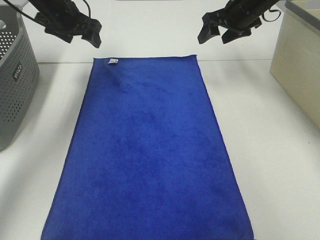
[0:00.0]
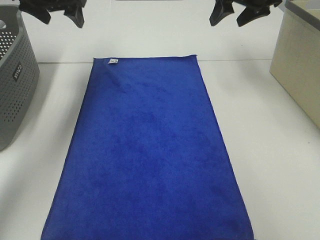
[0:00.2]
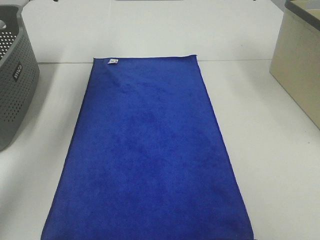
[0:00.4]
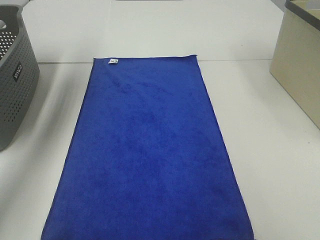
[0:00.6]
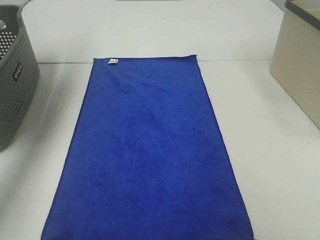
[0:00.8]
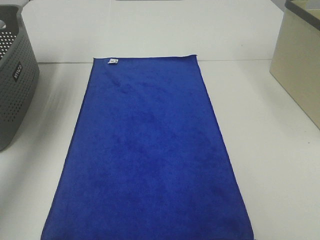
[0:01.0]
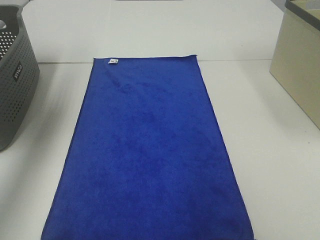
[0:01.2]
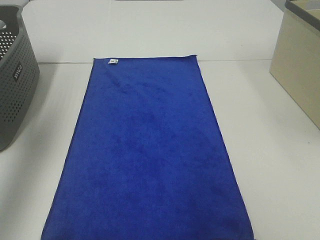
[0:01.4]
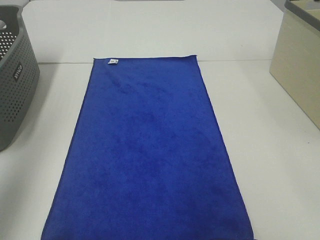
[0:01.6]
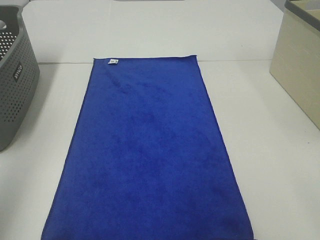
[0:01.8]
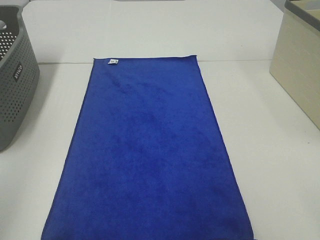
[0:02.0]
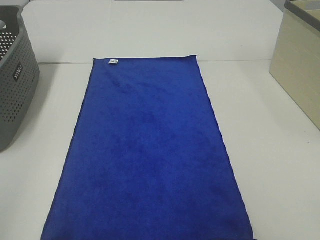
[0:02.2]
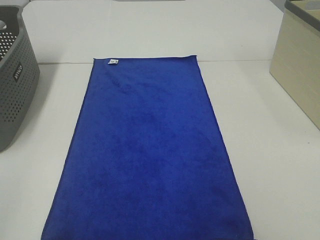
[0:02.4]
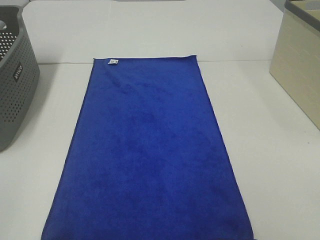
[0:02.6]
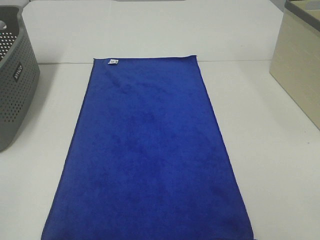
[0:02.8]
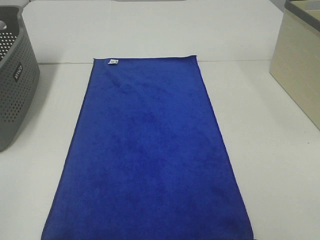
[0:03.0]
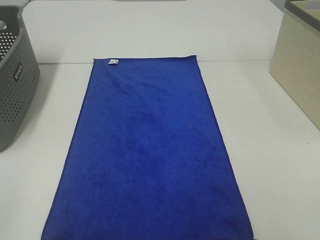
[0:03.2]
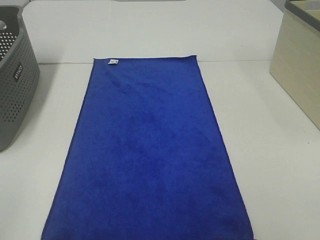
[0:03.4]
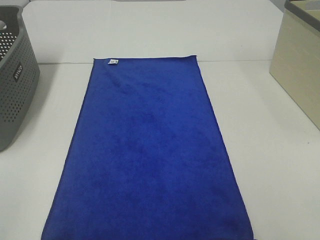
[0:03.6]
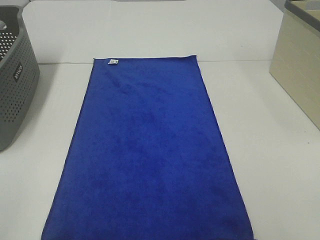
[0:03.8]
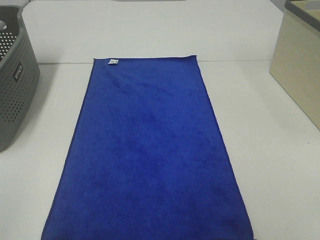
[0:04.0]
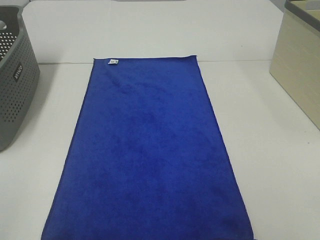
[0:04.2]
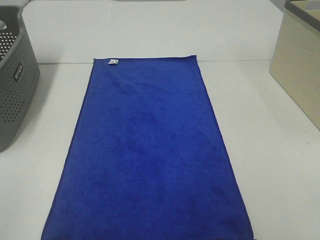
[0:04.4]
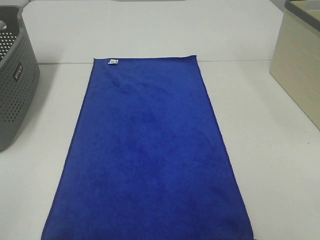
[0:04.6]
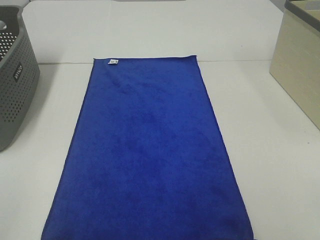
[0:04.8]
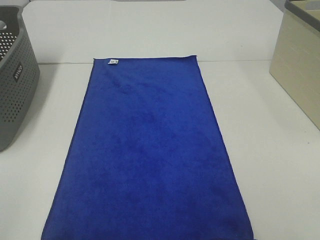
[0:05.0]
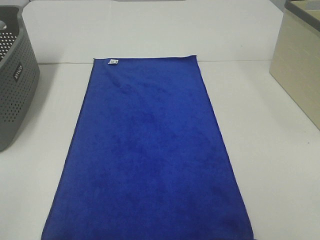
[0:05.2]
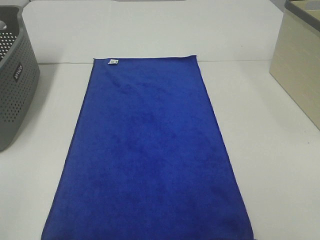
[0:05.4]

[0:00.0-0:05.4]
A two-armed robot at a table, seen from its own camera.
Task of the whole recording: Remove the towel and place it.
0:00.0 to 0:01.4: Both grippers move backward and upward, approximately 35 cm.
0:01.4 to 0:02.8: The left gripper travels backward by approximately 30 cm.
0:04.0 to 0:05.4: Both grippers stay put.

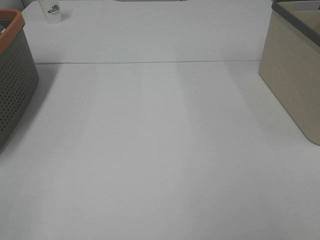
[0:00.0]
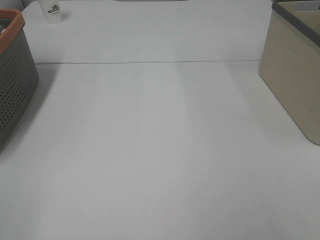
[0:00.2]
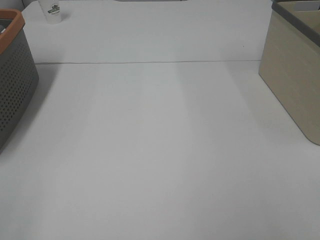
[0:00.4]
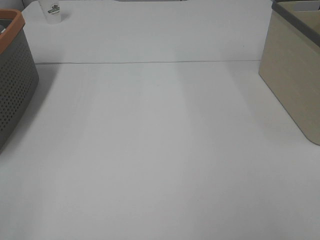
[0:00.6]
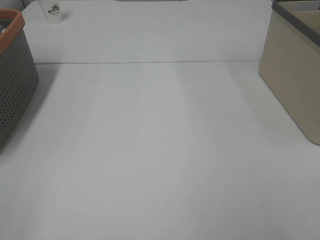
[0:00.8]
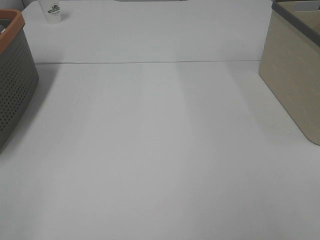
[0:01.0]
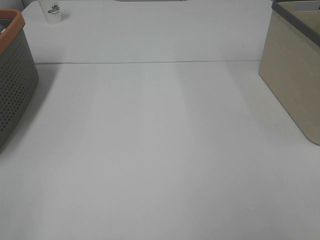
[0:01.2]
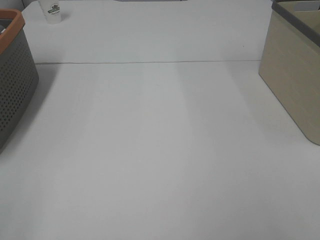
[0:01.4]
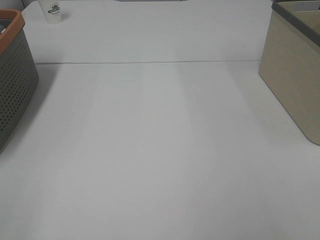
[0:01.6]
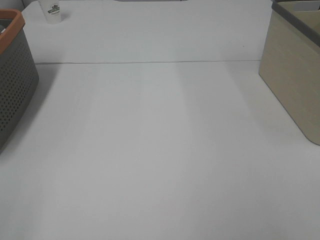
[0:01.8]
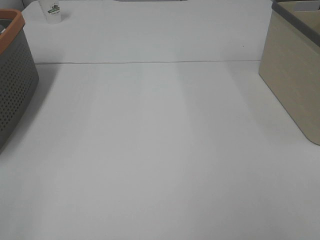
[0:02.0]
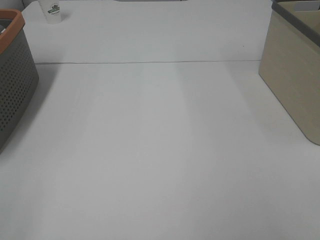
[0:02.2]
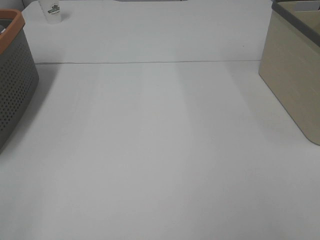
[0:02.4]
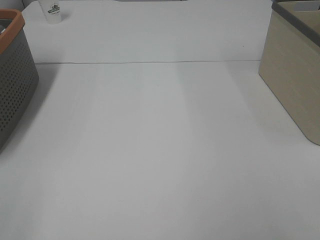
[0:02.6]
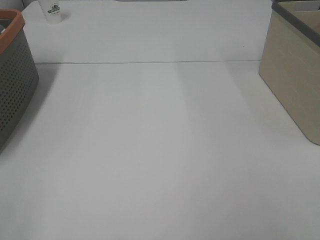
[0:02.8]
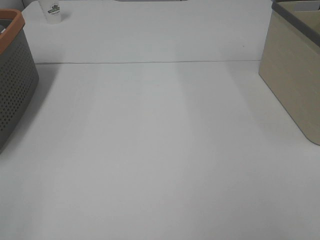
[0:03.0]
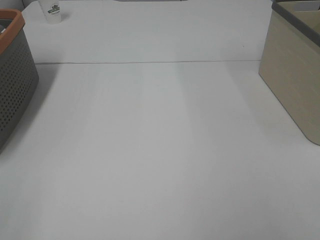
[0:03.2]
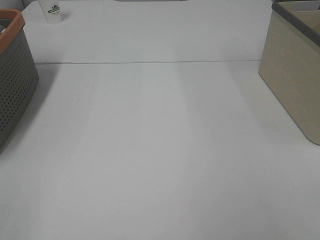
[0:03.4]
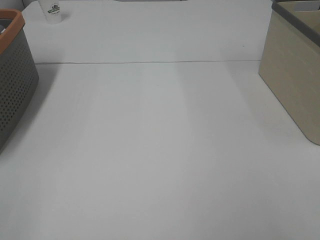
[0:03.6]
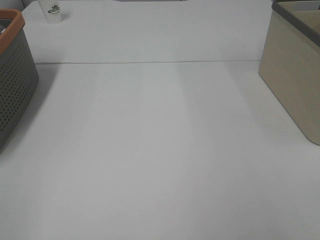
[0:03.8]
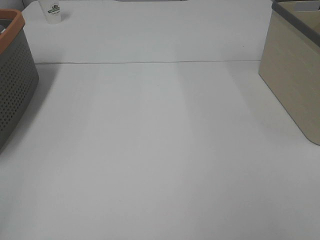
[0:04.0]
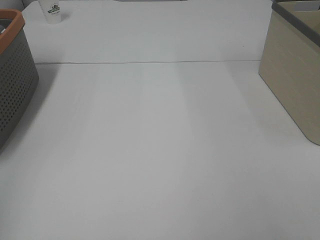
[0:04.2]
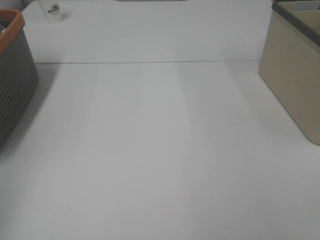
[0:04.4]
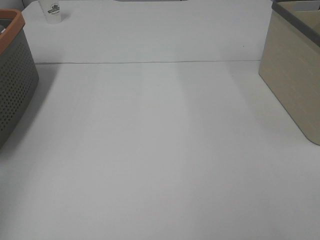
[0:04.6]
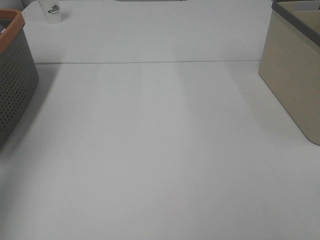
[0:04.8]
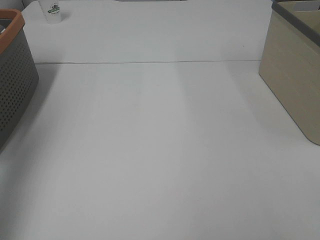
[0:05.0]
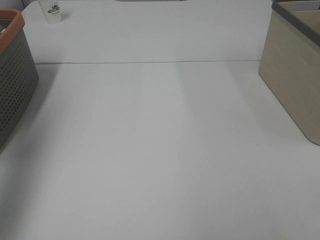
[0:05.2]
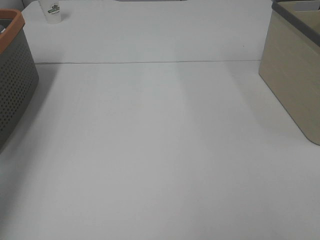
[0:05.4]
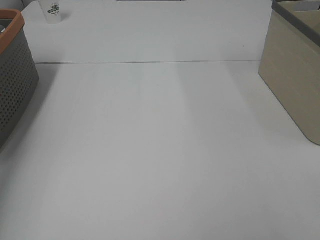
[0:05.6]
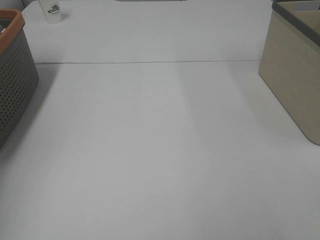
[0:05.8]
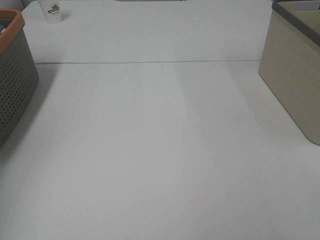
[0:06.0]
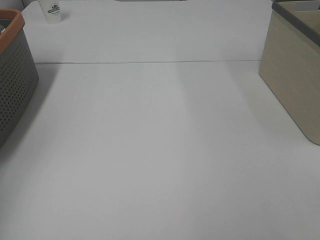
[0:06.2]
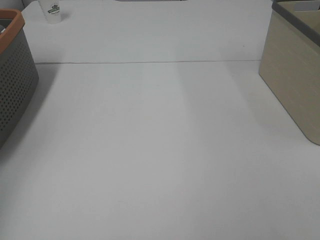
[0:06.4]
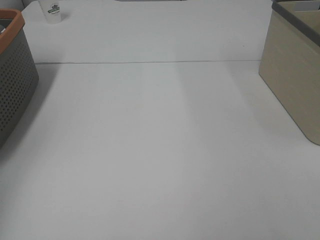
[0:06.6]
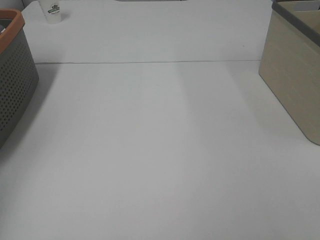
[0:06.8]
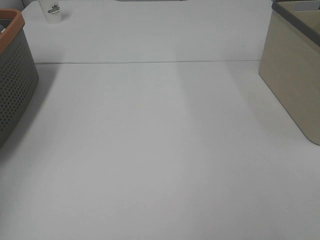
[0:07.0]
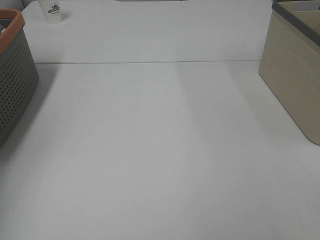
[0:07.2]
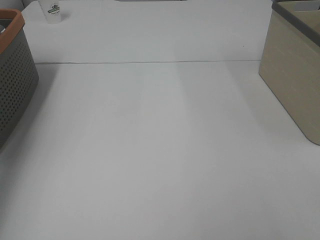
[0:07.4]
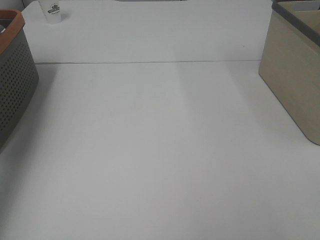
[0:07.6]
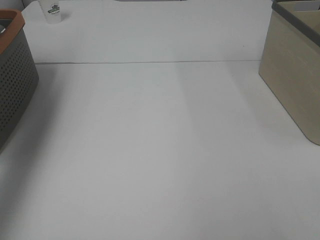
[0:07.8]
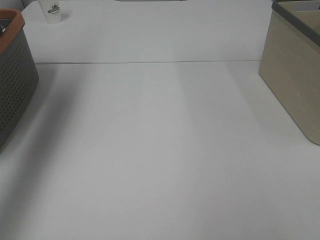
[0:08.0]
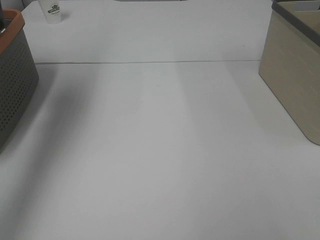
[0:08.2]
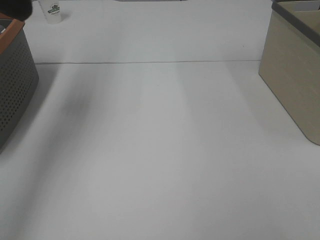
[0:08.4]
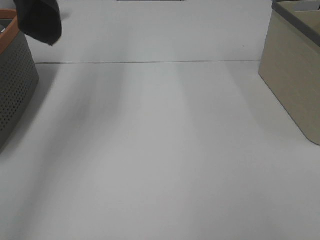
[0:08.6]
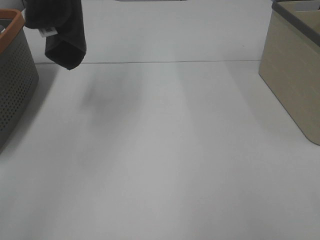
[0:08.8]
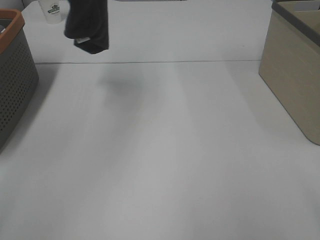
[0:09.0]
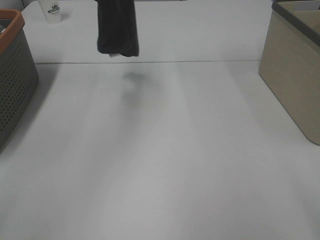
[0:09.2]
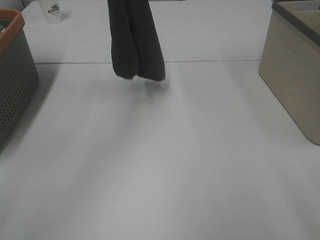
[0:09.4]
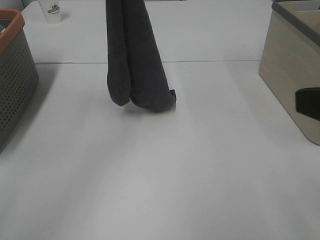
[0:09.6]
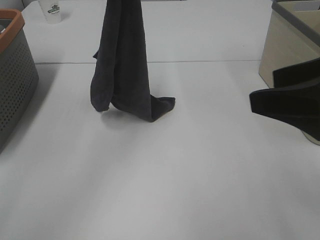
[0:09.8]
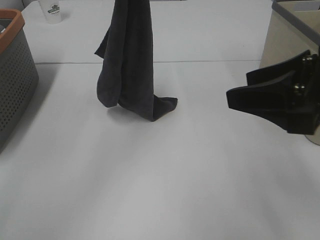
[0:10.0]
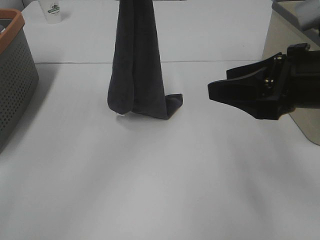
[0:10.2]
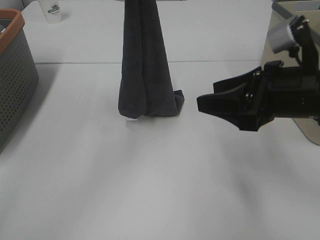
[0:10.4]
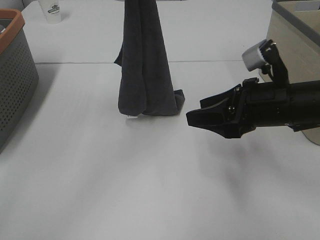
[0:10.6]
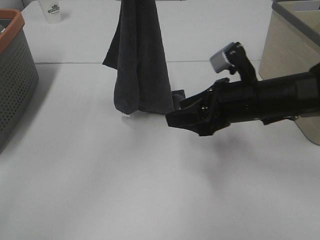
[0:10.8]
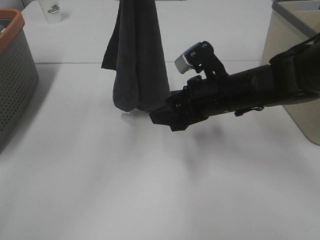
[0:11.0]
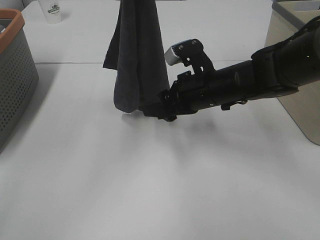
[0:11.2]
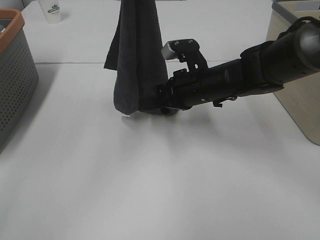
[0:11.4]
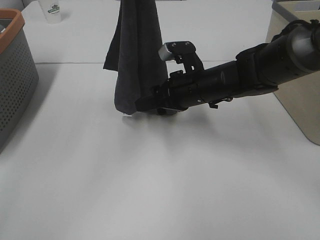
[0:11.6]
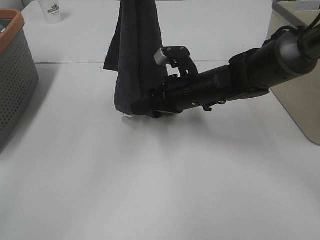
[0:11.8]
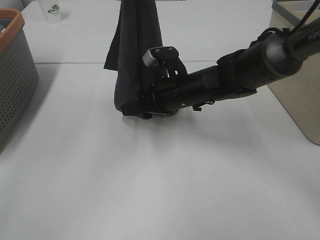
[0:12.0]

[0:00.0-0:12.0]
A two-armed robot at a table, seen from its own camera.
Task of the whole recording: Remove the towel and place it.
Step, 0:08.2 to 0:10.8: Right hand: grab a corner of the grey towel and straighten it.
0:00.0 to 0:03.0: Both grippers stay put.
0:06.0 to 0:07.6: The left gripper heads upward and to the right, covering some 15 cm, and closes up.
0:07.6 to 0:09.0: The left gripper travels to the right by some 20 cm. The right gripper travels forward by about 5 cm.
0:09.0 to 0:10.4: The right gripper shifts approximately 20 cm forward and downward. Meanwhile the left gripper heads downward, covering about 10 cm.
0:10.4 to 0:12.0: The right gripper travels to the left, forward and downward by about 20 cm.

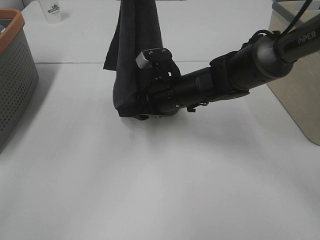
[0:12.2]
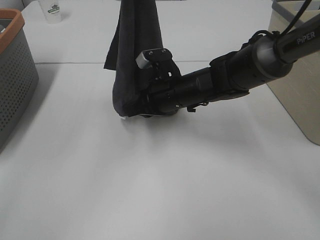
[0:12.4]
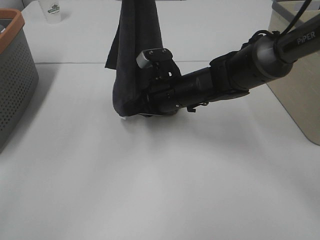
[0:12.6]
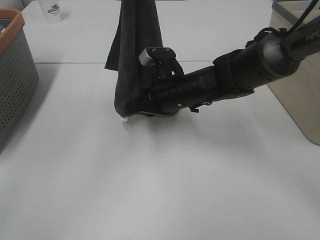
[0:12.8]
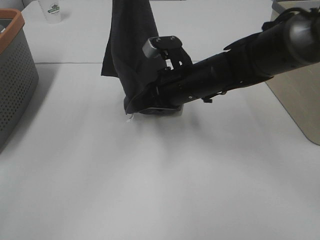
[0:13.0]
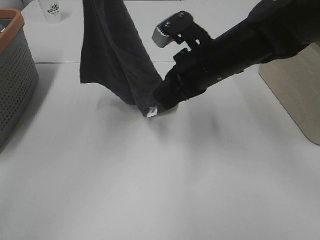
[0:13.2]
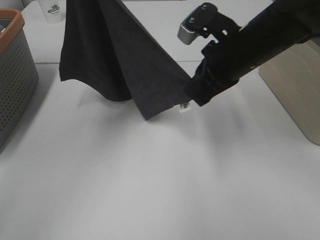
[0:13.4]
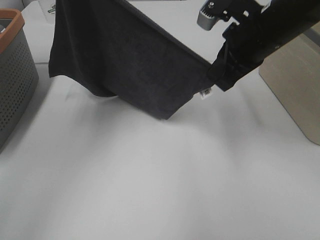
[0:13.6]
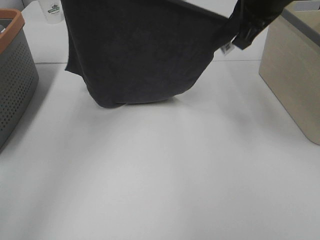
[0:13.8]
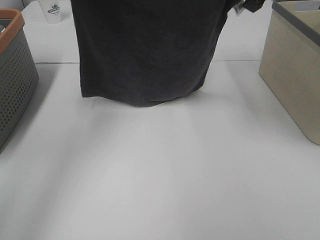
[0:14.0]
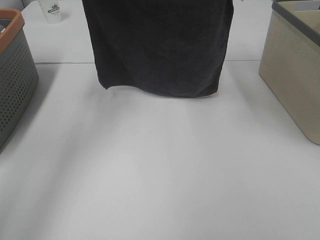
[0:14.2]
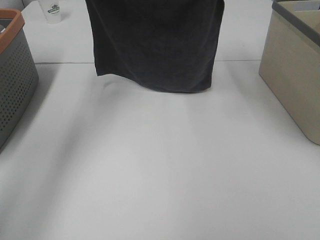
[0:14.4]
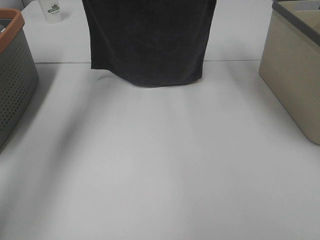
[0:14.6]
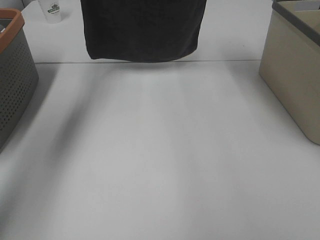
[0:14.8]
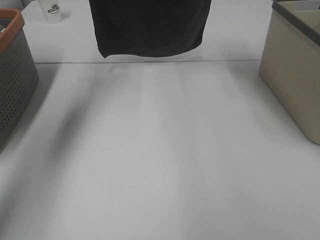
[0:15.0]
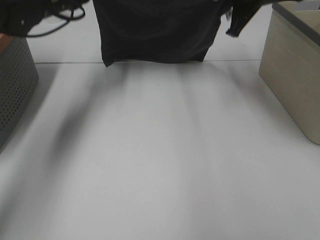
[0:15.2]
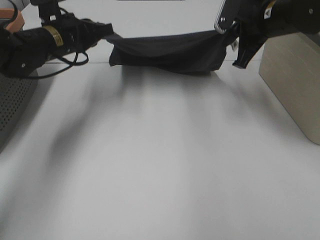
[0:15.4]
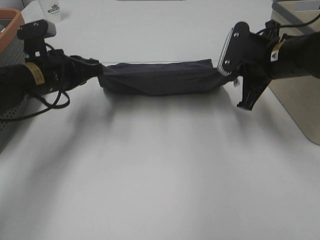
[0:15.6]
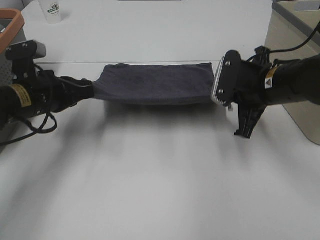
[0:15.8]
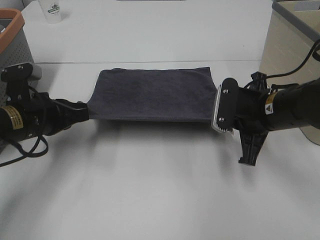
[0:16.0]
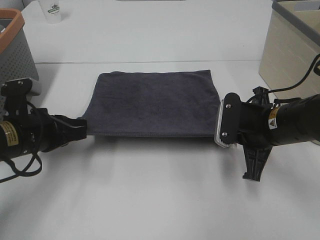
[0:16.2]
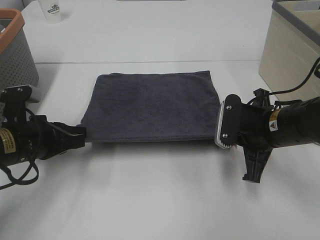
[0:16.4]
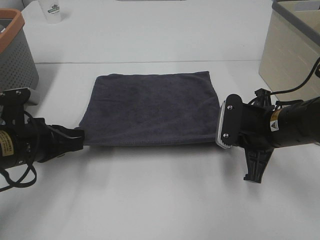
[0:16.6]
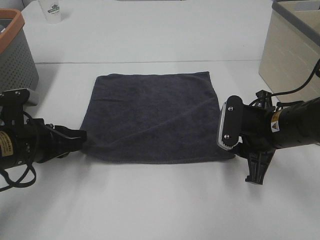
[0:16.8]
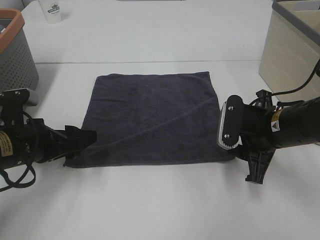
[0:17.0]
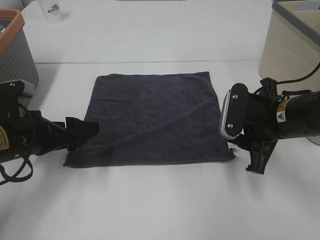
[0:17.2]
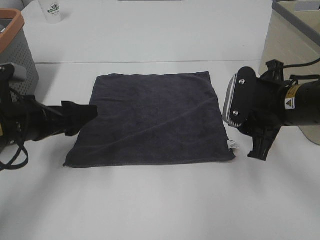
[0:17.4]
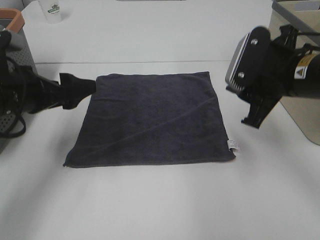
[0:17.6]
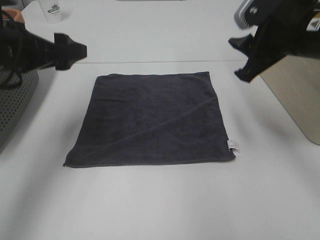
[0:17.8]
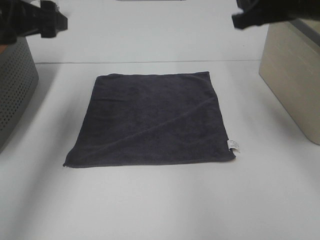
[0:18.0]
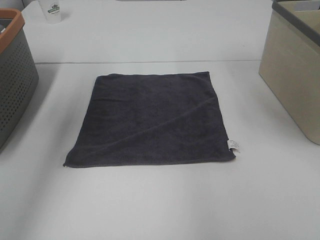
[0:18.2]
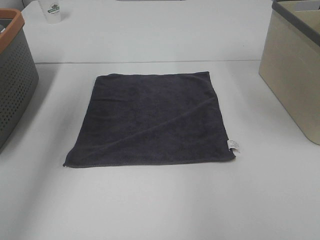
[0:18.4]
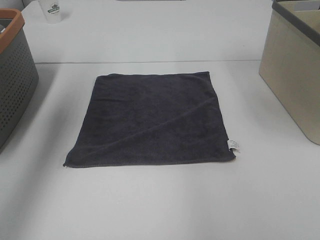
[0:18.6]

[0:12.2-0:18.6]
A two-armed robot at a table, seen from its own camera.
Task of the whole recording: Remove the towel and place it.
0:12.2 to 0:13.8: The left gripper is displaced to the left by about 10 cm. Meanwhile the right gripper shifts some 25 cm upward and to the right, and closes its fingers.
0:13.8 to 0:15.4: The right gripper shifts roughly 10 cm downward; the left gripper is displaced downward by some 20 cm.
0:15.4 to 0:17.0: The two grippers go roughly 20 cm backward and downward. The right gripper opens its fingers. The left gripper opens its fingers.
0:17.0 to 0:18.6: Both grippers travel together upward, approximately 25 cm.
